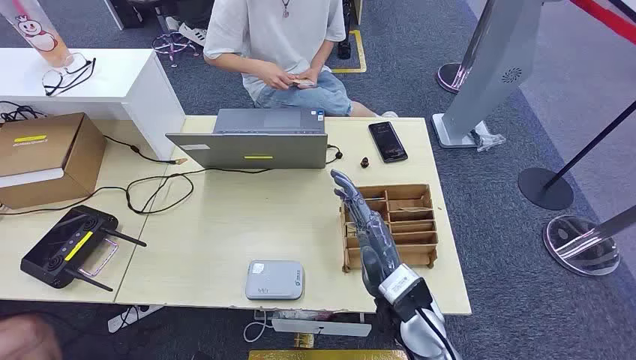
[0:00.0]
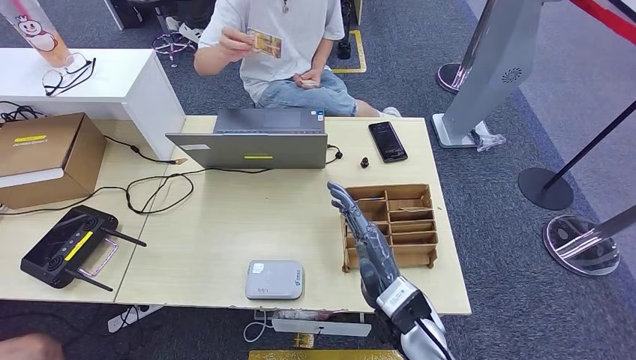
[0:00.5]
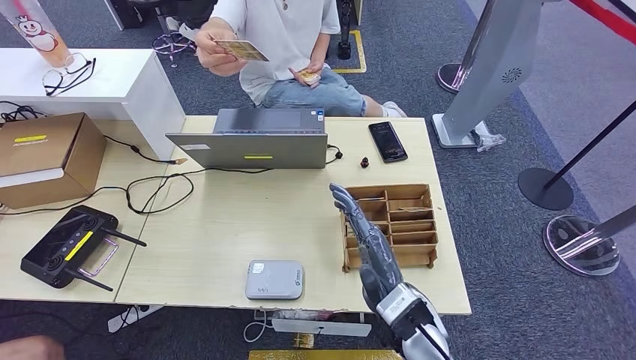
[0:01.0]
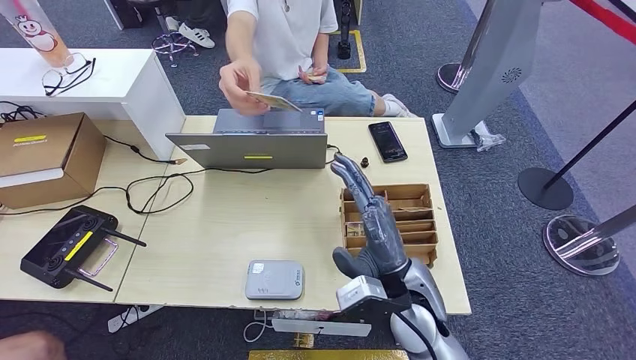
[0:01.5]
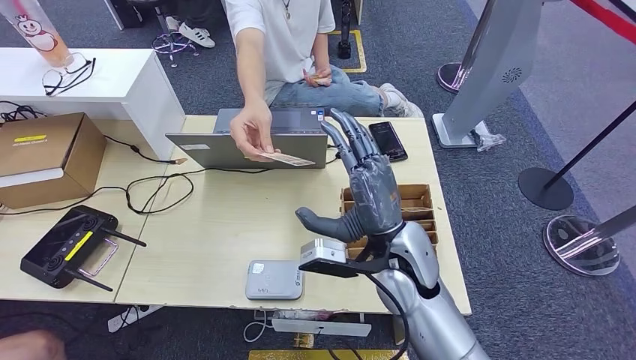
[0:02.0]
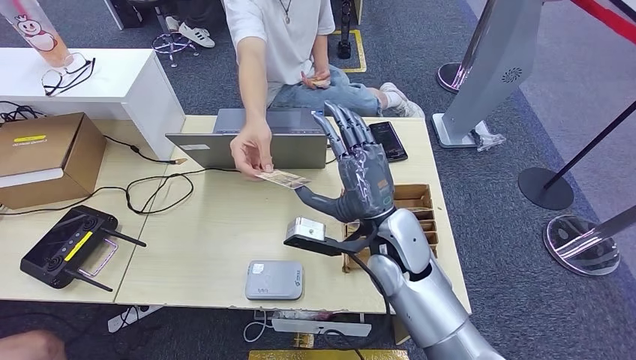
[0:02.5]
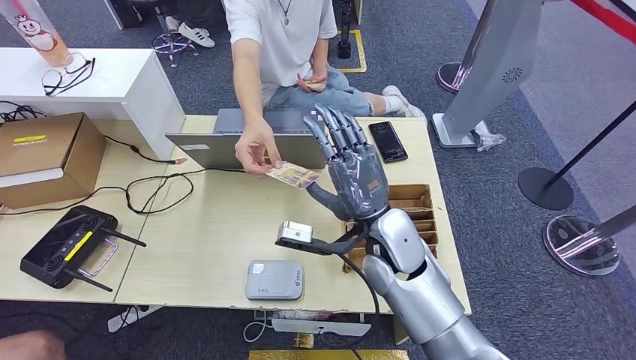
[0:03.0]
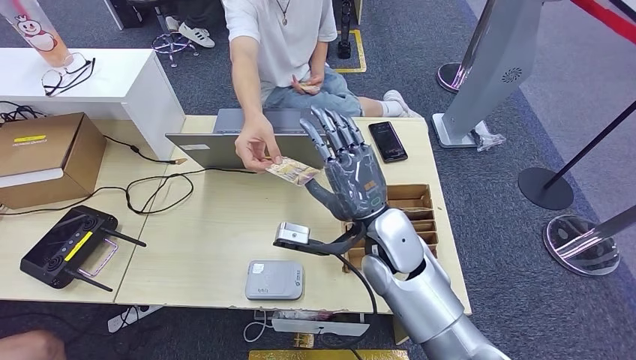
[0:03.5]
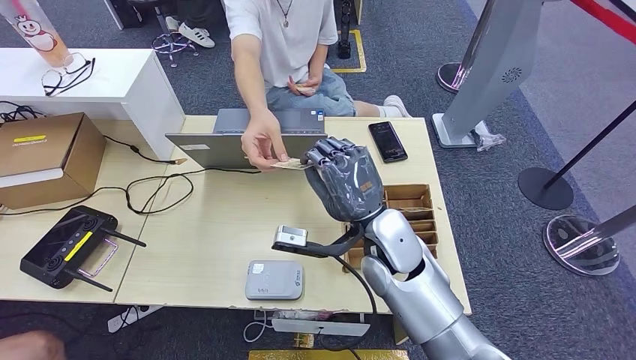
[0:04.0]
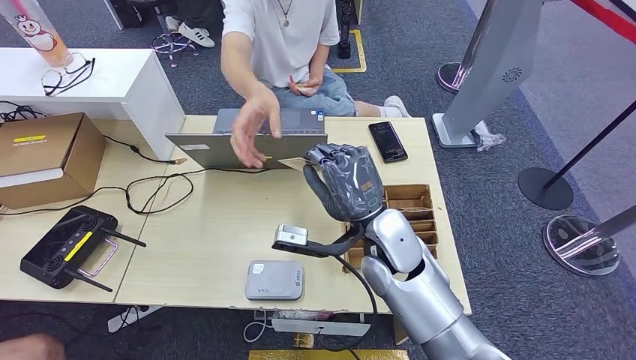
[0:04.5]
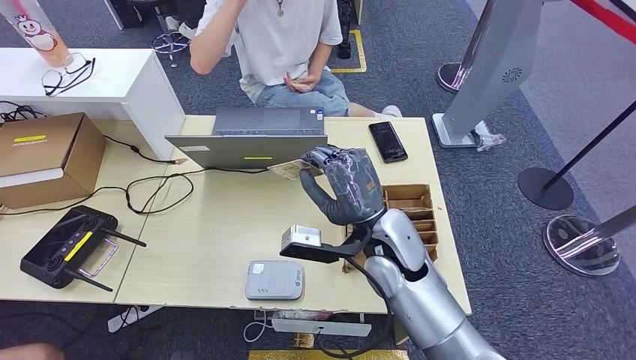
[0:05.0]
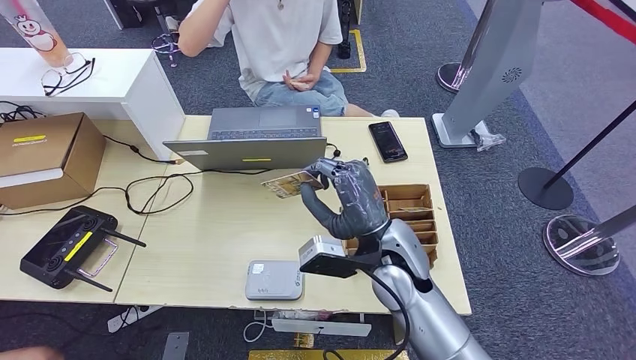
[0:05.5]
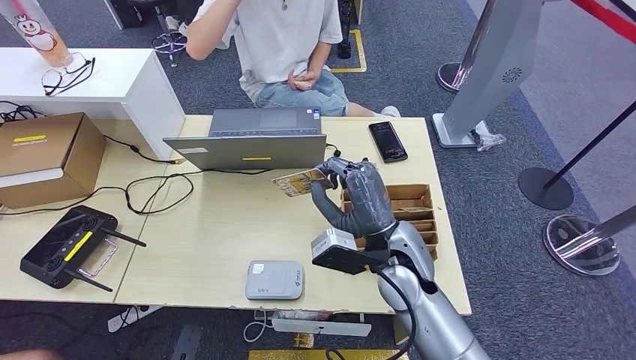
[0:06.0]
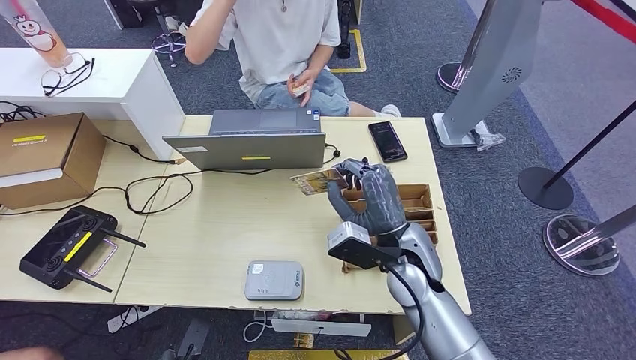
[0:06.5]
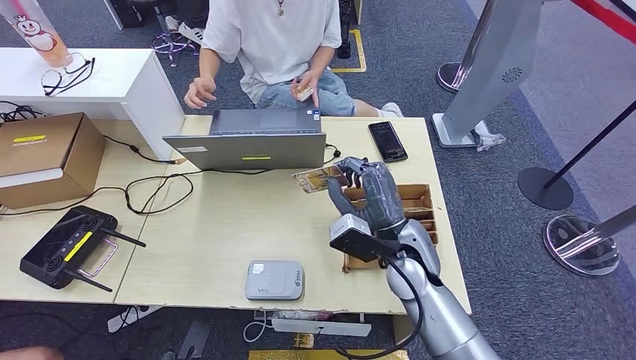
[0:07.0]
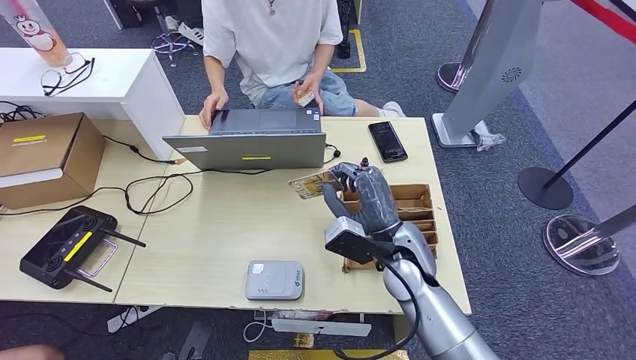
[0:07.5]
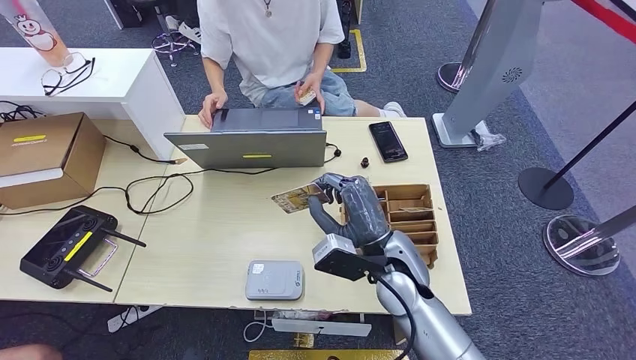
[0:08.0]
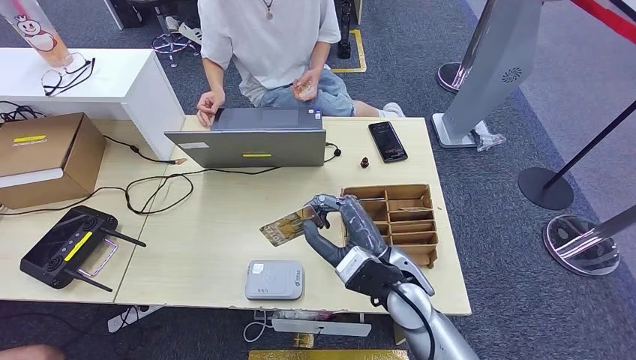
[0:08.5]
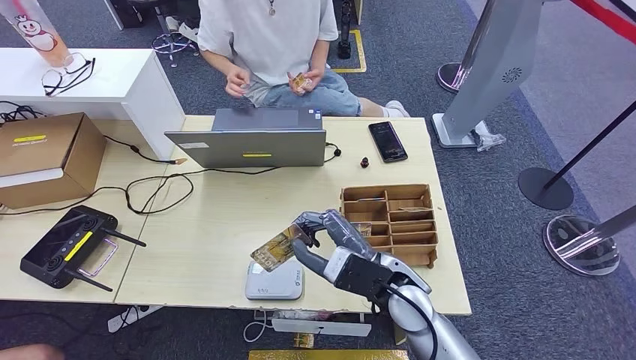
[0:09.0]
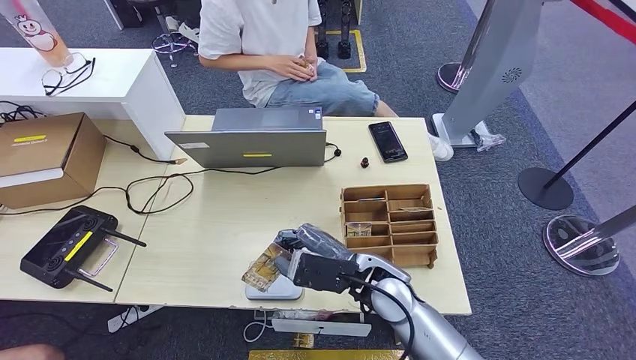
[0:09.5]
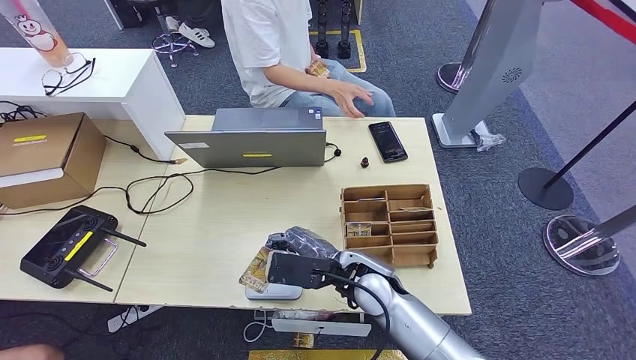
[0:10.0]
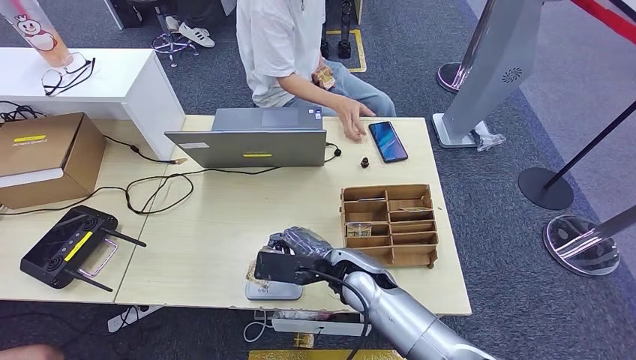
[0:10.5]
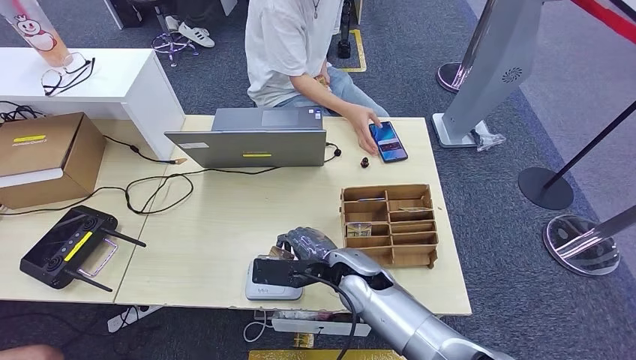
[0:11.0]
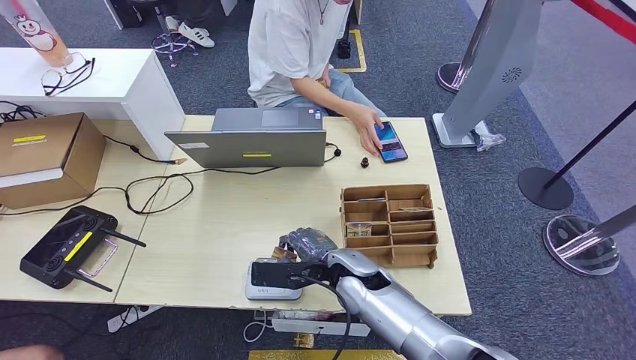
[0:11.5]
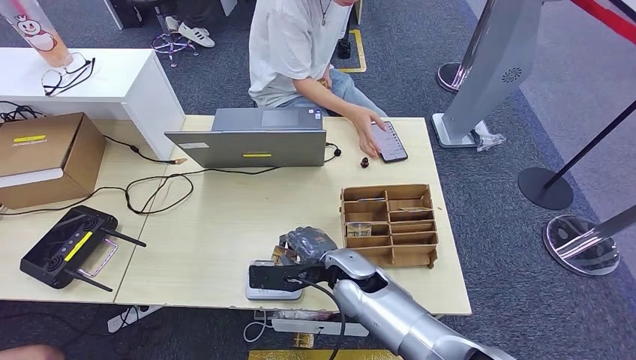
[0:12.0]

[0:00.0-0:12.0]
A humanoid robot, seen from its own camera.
Step, 0:00.0 to 0:04.0: Take the ID card from the person's hand.
0:04.0 to 0:06.0: The left hand is displaced forward by some 5 cm.
0:06.0 to 0:08.0: The hands make only small movements.

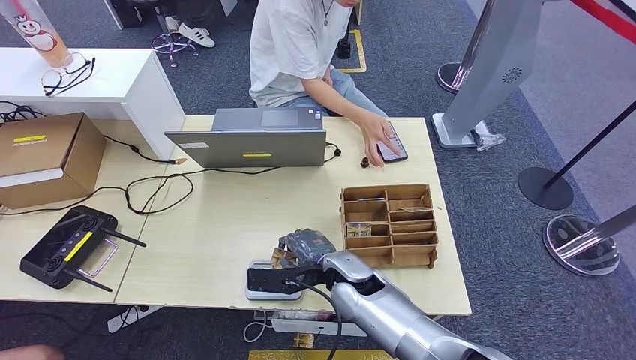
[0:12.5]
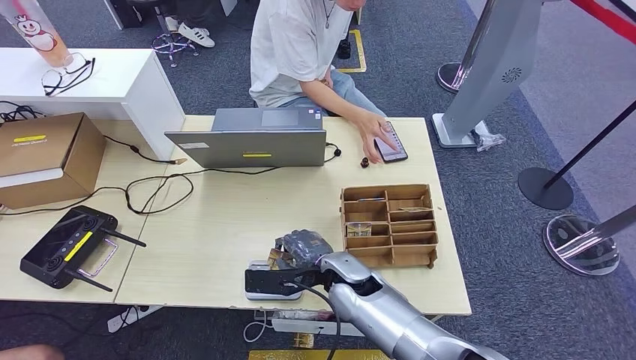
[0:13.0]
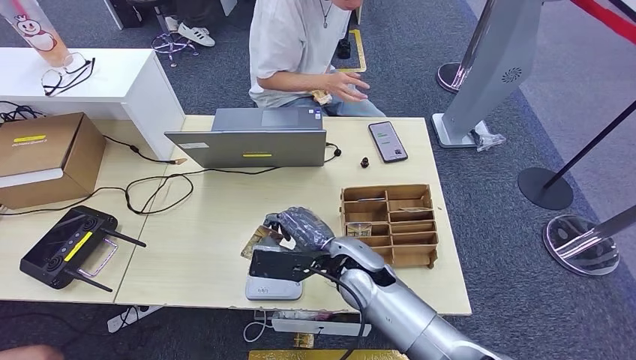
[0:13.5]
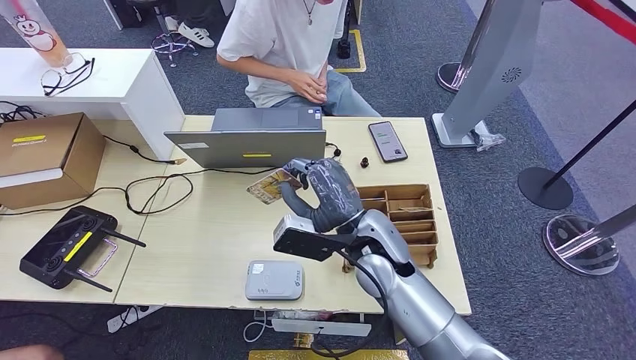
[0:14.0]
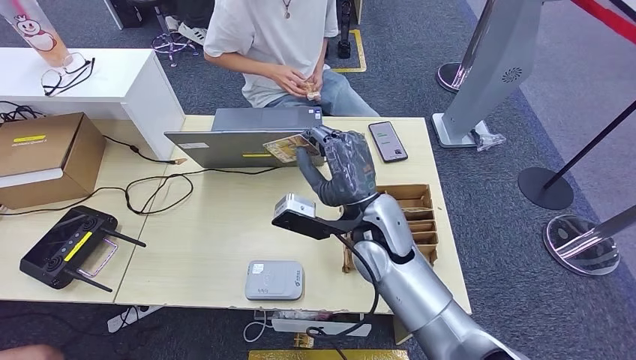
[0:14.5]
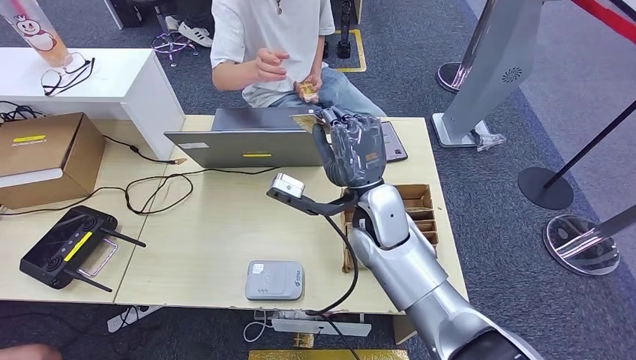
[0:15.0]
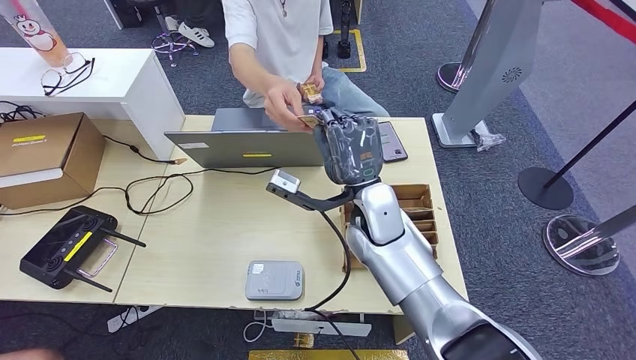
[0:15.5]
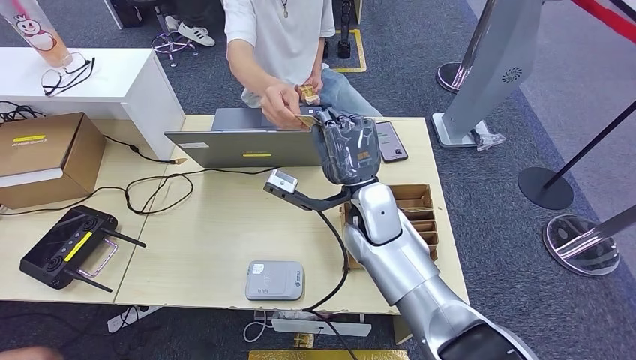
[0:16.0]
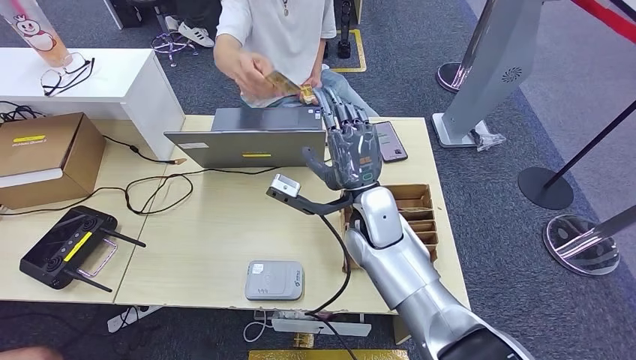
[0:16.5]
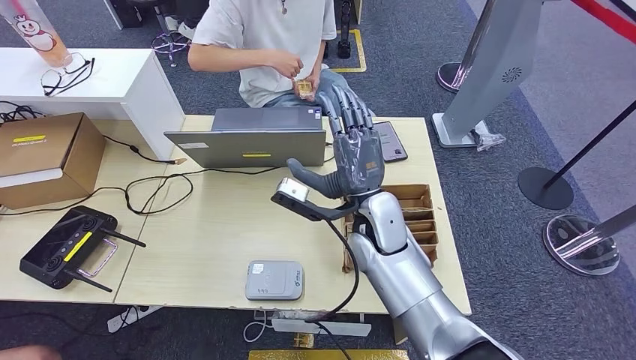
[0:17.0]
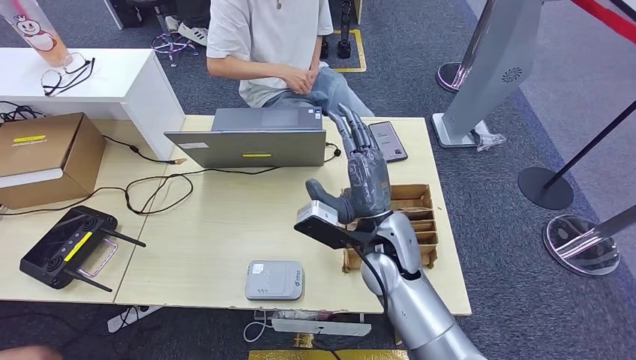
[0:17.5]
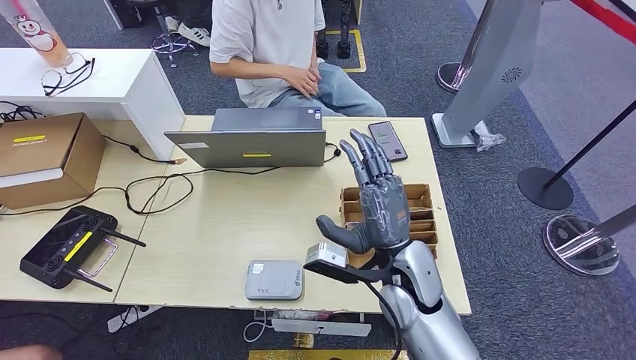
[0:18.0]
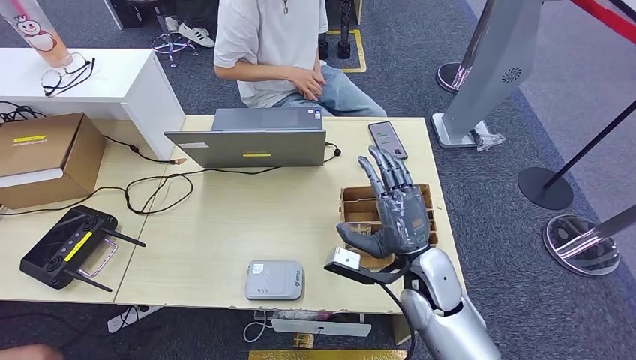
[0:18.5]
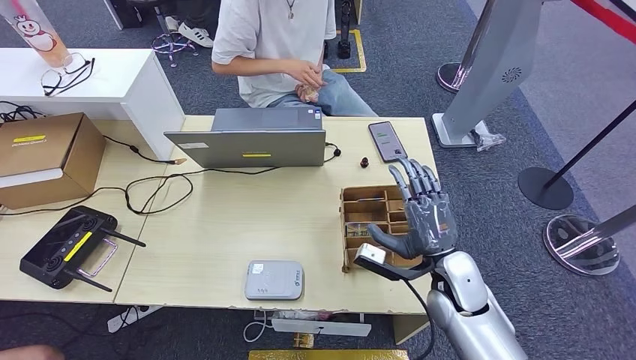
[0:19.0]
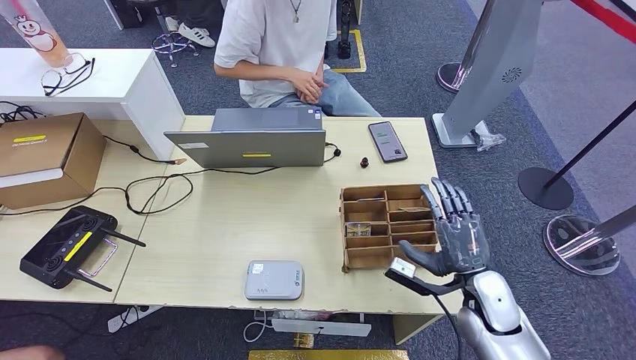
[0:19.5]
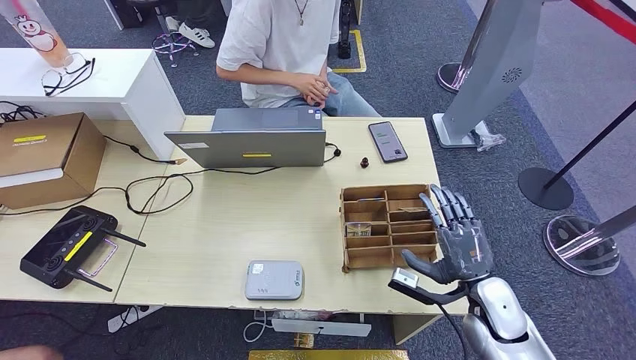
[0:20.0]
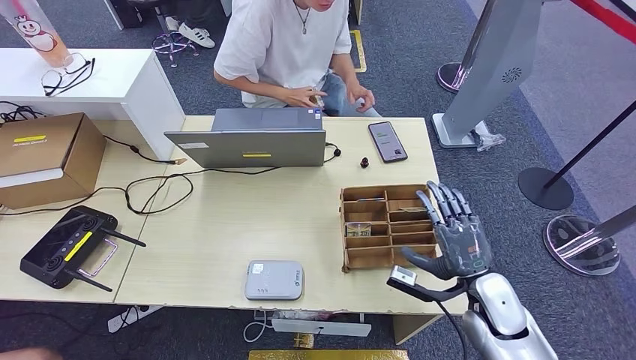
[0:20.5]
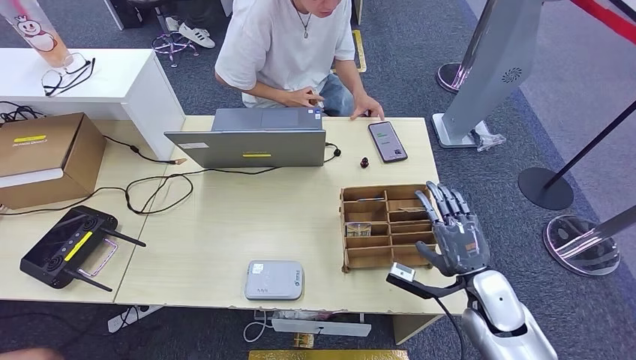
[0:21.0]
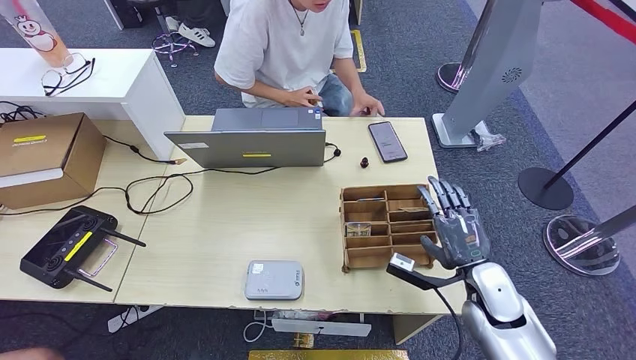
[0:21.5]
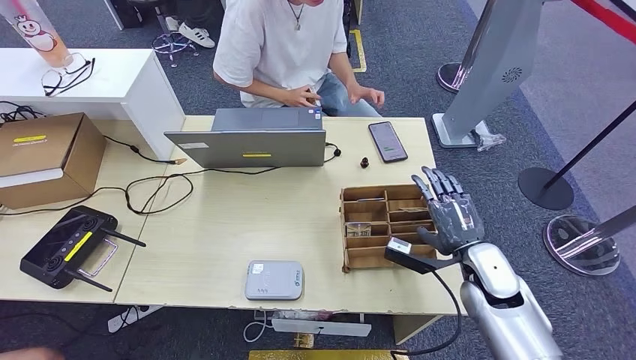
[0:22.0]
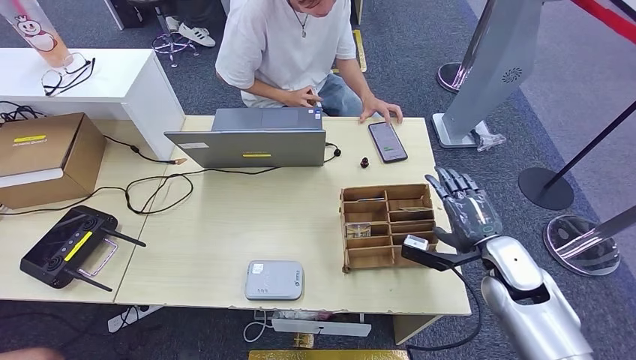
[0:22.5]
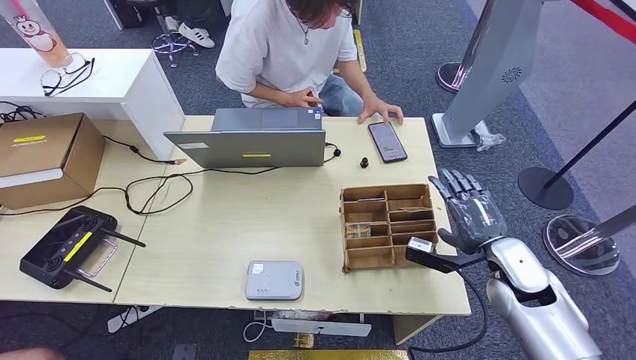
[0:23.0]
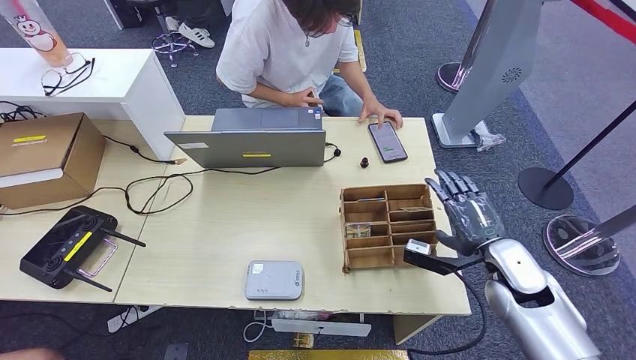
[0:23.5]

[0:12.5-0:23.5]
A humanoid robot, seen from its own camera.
Step, 0:13.0 to 0:16.5: Hand the ID card to the person.
0:12.5 to 0:14.5: The right hand is displaced upward by some 10 cm.
0:16.0 to 0:18.0: The right hand shifts approximately 10 cm backward.
0:18.0 to 0:20.0: The right hand heads to the right and downward, covering approximately 20 cm.
0:20.0 to 0:21.5: The hands make only small movements.
0:21.5 to 0:23.5: The right hand shifts by roughly 5 cm.
